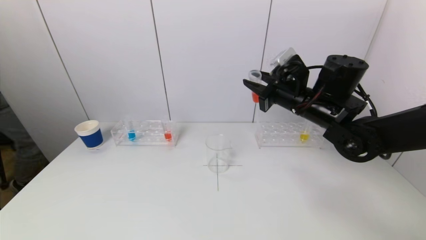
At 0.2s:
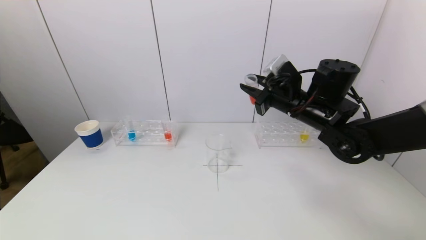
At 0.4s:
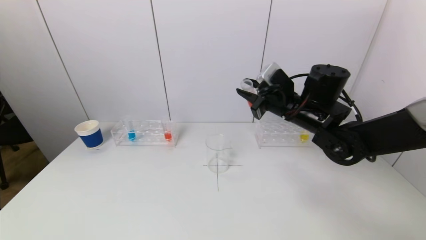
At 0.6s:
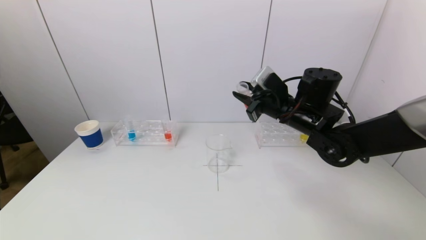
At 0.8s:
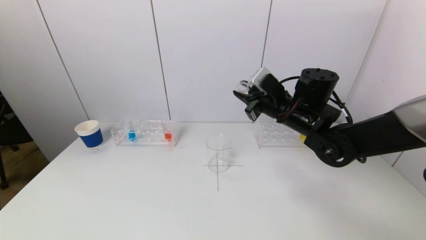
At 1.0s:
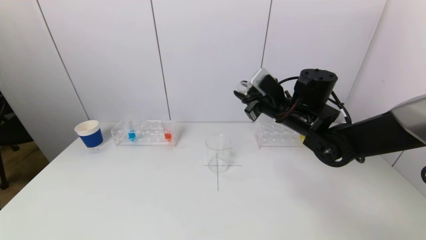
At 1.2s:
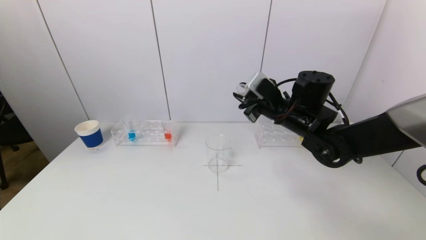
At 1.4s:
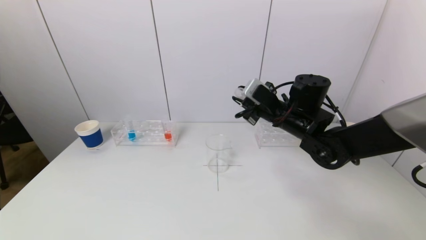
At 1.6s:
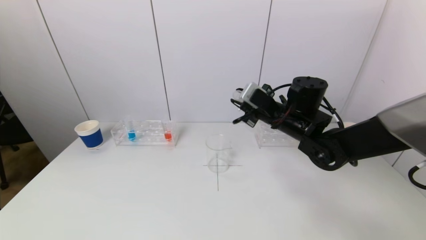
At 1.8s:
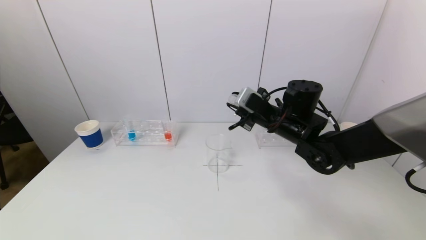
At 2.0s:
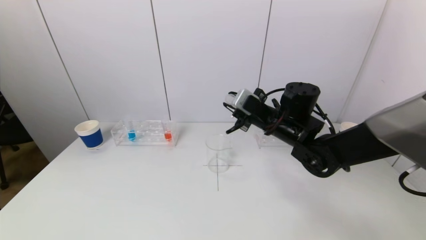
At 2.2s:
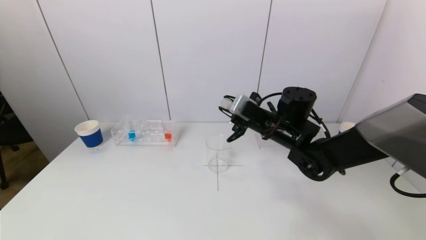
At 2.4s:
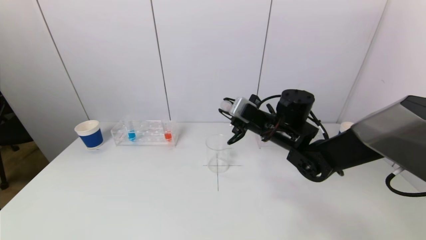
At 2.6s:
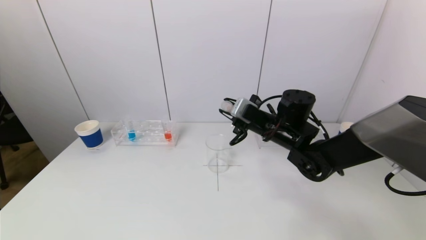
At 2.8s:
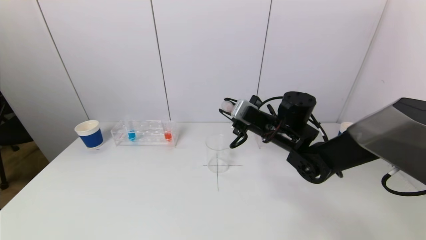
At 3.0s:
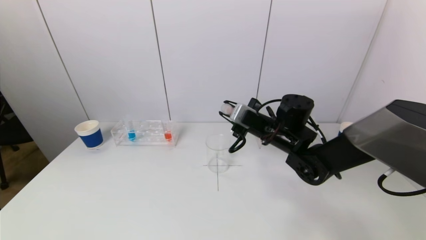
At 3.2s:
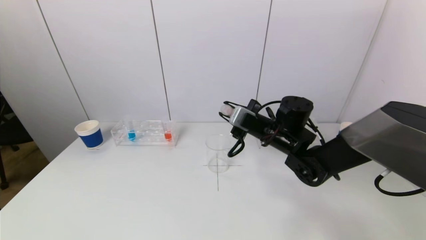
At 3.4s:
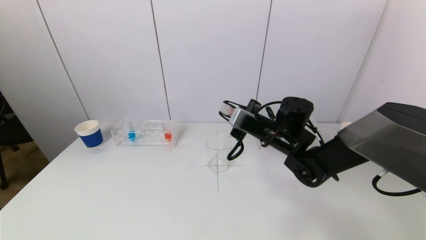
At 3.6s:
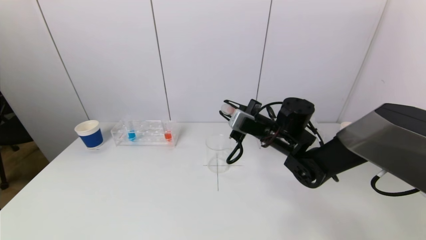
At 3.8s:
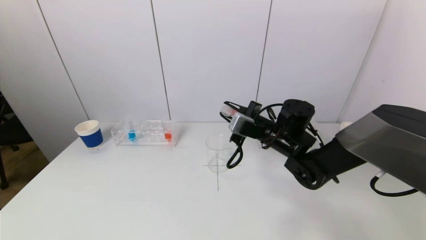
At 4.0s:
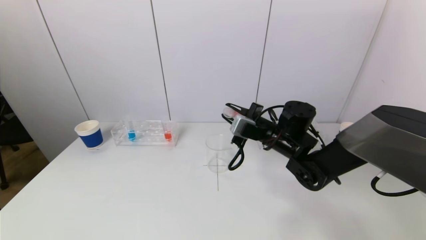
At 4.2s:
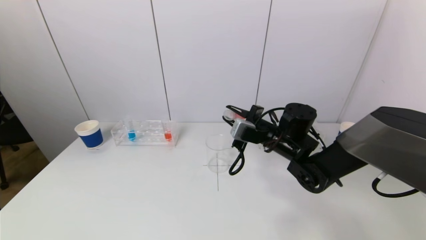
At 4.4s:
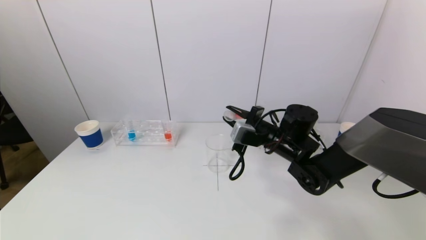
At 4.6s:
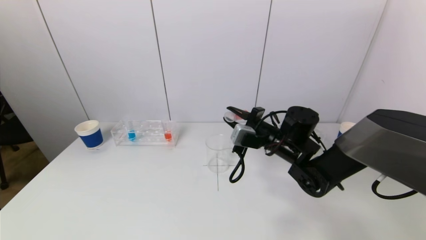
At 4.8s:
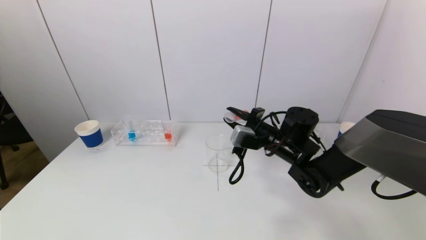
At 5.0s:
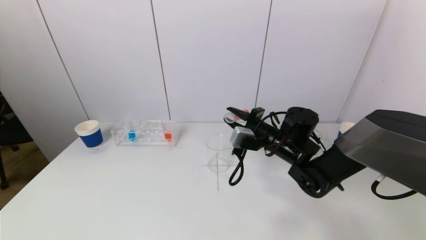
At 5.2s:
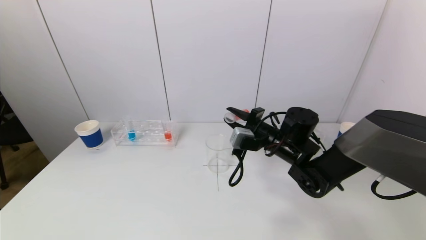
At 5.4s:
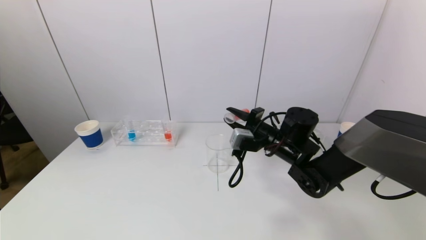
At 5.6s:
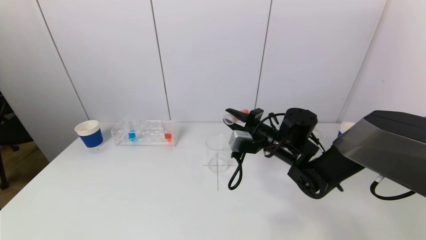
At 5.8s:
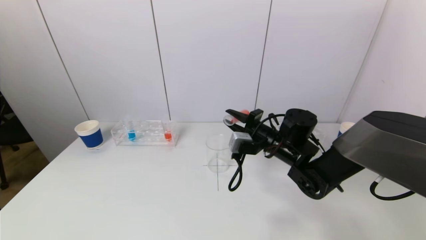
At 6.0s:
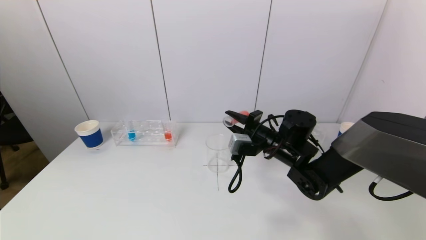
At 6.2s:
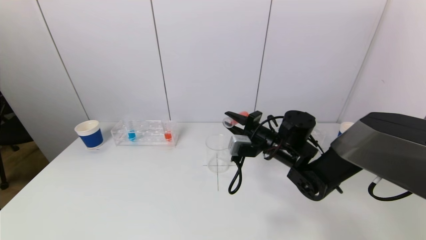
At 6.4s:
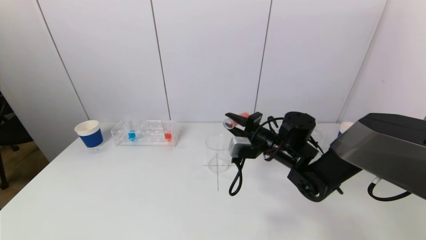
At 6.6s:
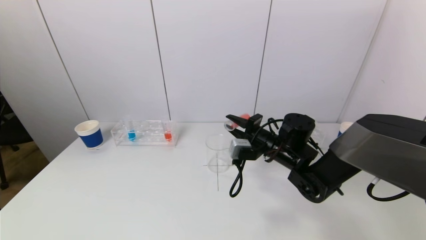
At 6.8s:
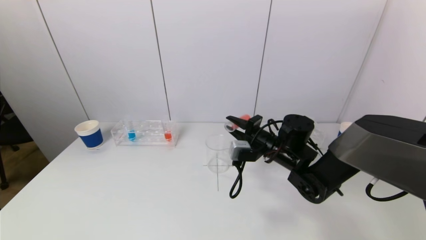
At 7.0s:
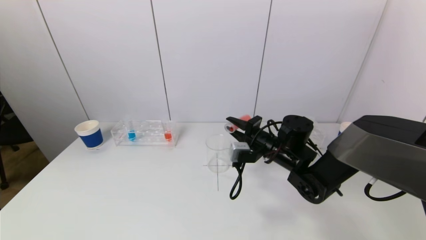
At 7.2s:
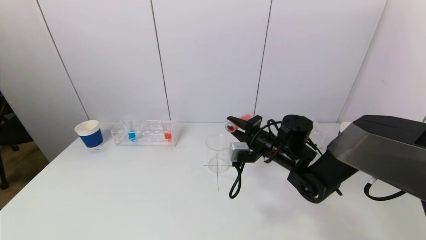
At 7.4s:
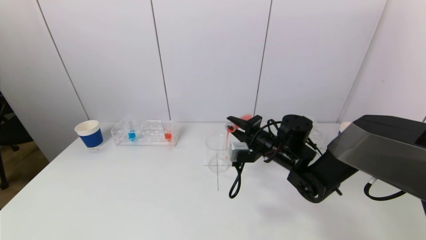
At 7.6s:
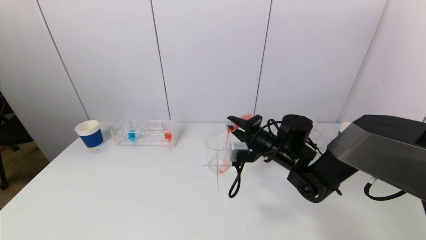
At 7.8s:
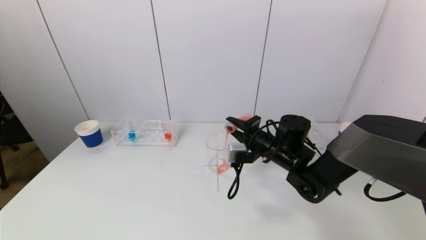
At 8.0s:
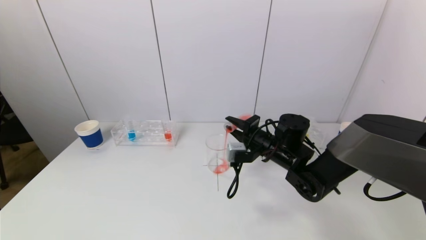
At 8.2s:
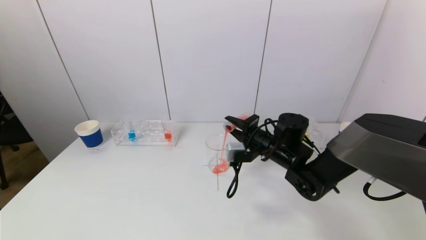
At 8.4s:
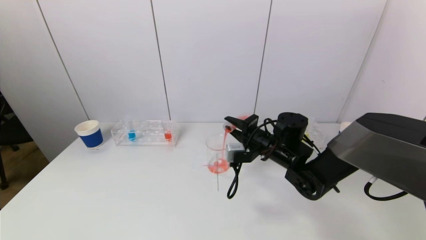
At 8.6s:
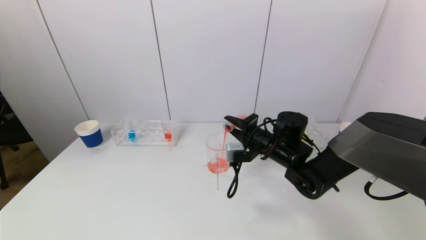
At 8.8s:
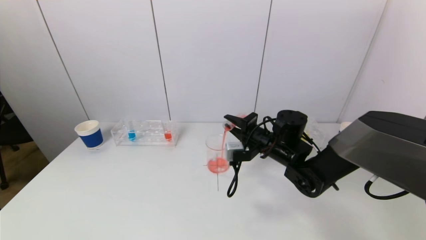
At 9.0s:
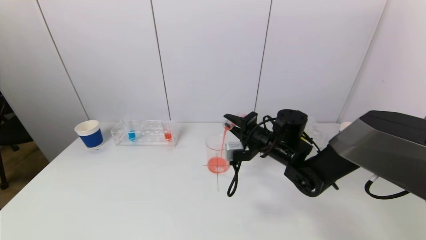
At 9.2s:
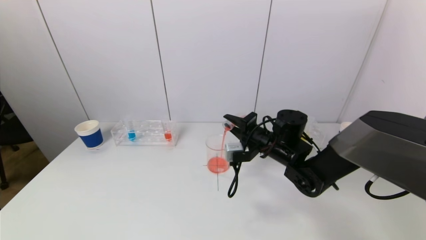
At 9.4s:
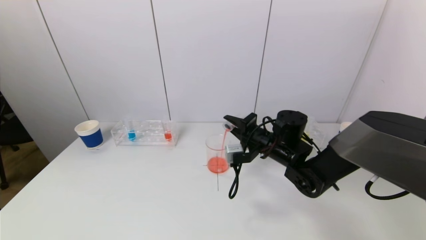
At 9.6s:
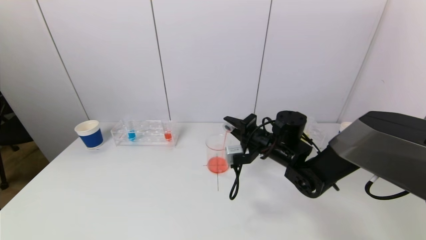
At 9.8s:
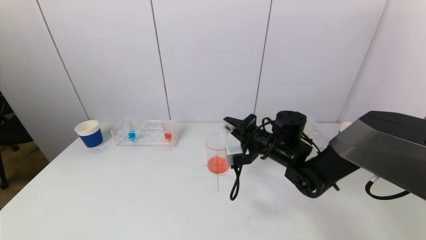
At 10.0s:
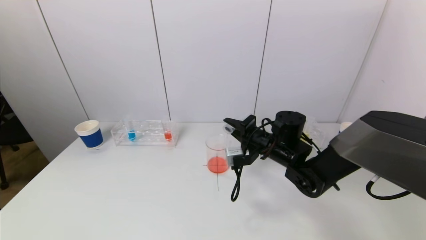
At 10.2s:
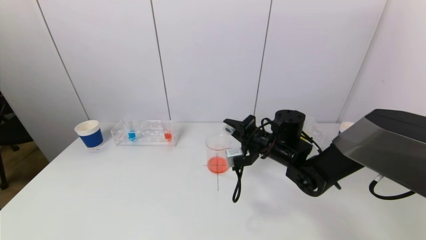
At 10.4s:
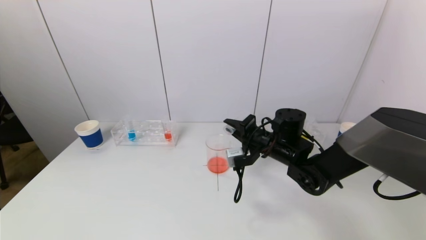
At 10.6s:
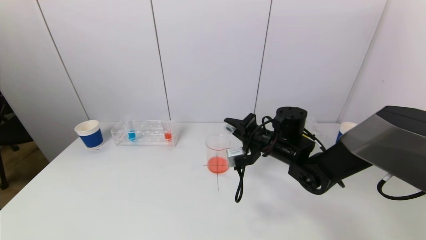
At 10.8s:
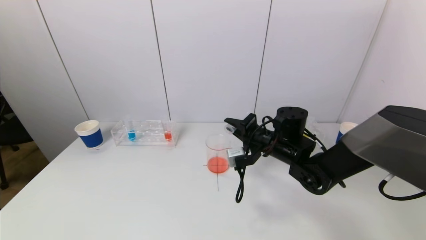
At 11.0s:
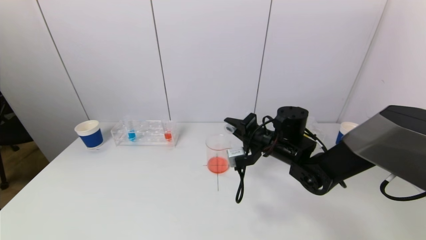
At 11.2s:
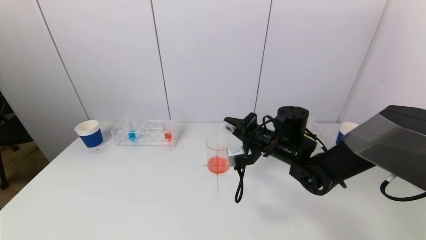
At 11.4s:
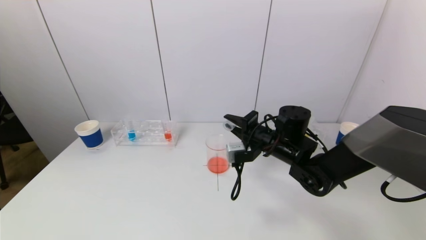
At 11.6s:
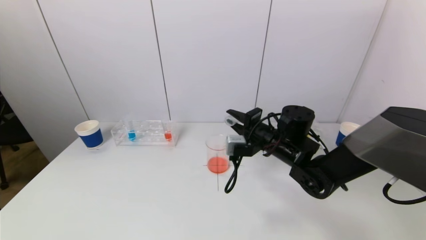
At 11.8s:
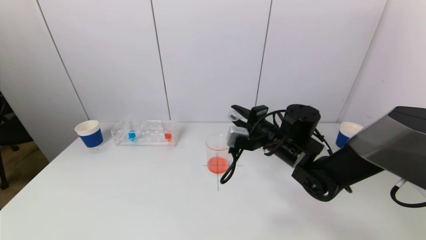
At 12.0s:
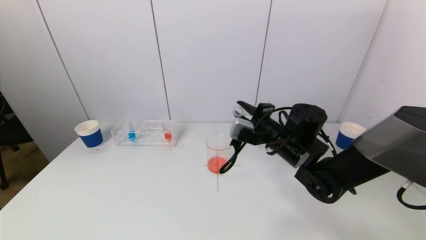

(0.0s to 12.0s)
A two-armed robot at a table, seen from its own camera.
Task of the whole recording: pick up a test tube with pigment on left test tube rack and a test tube with pigment on right test tube rack by grippers and pour them into the beaker.
Step, 0.0s - 11.4s: Pour the red reagent into the graduated cylinder with the right gripper.
0.0s - 1.6s: The right gripper changes place by approximately 5 cm.
1.6s - 3.0s: There are only small adjustments of the grippers.
3.0s - 4.4s: There are only small adjustments of the grippers.
4.4s - 7.6s: The grippers move only a little.
7.6s - 10.4s: The grippers move only a little.

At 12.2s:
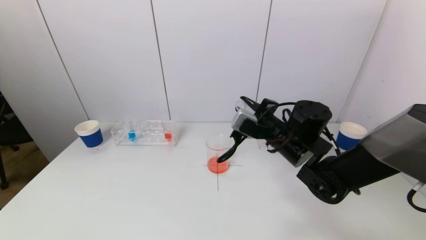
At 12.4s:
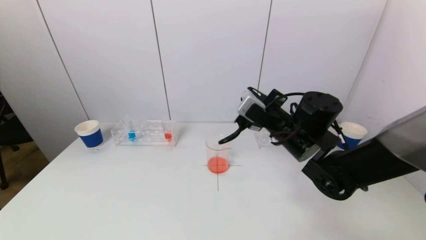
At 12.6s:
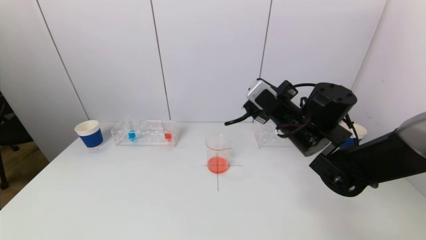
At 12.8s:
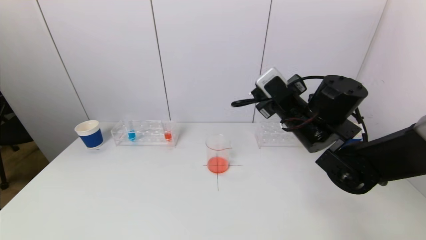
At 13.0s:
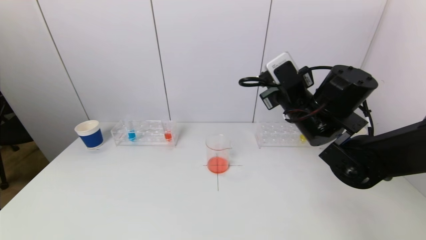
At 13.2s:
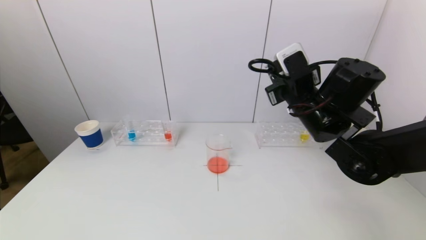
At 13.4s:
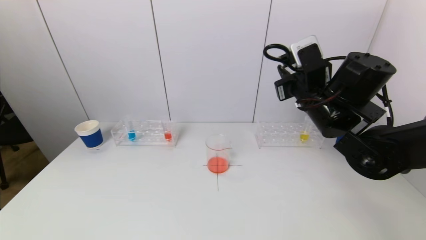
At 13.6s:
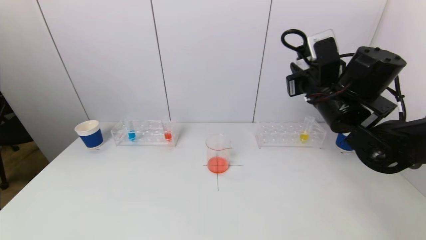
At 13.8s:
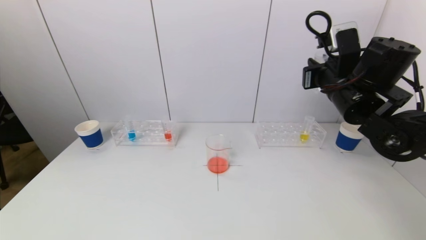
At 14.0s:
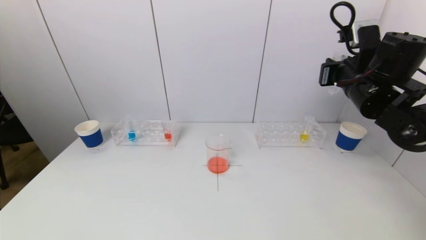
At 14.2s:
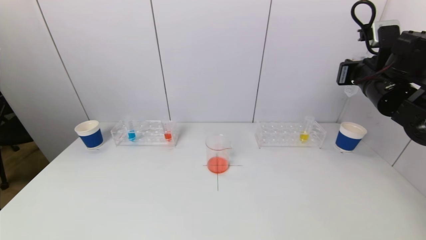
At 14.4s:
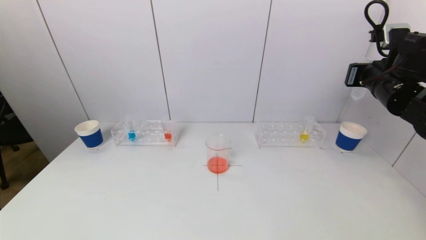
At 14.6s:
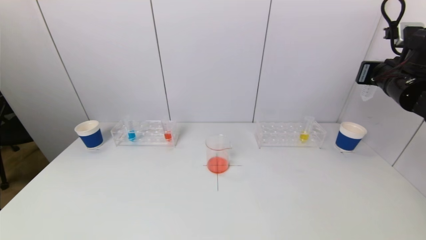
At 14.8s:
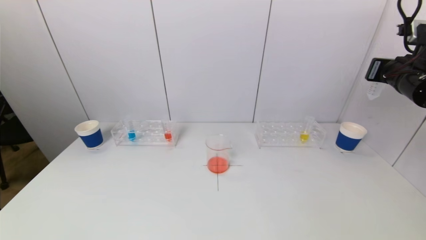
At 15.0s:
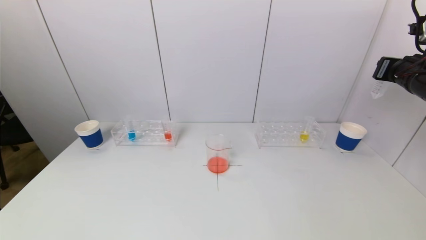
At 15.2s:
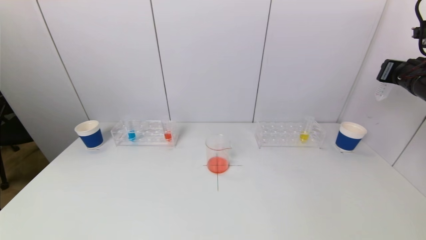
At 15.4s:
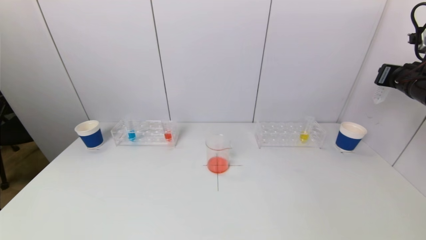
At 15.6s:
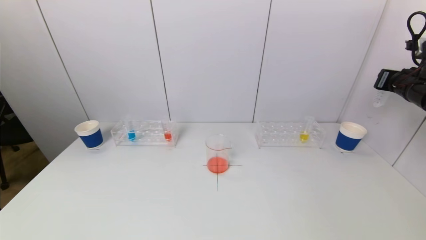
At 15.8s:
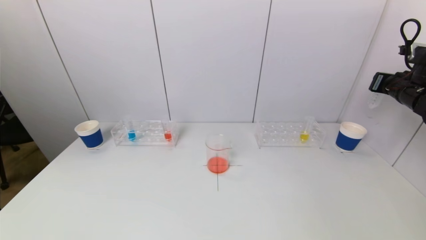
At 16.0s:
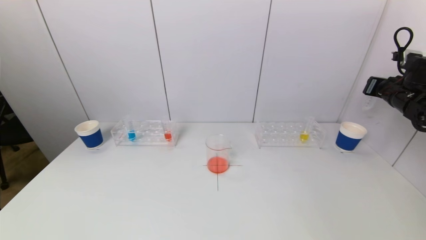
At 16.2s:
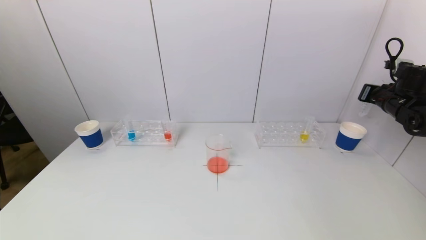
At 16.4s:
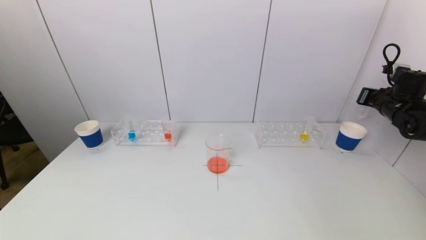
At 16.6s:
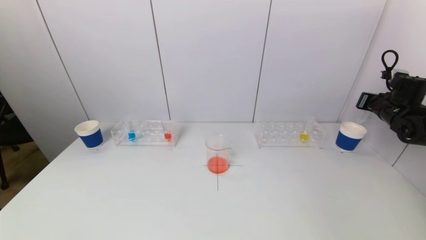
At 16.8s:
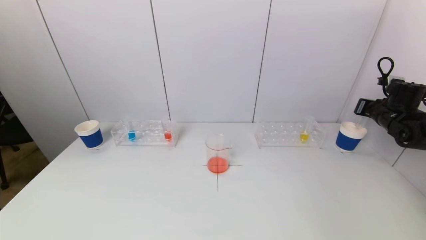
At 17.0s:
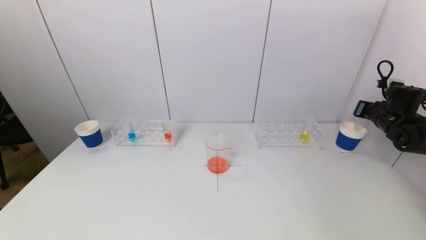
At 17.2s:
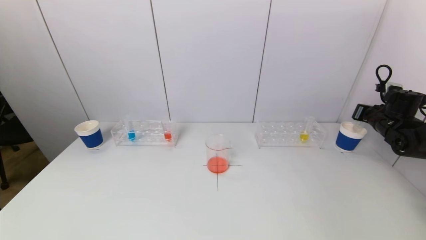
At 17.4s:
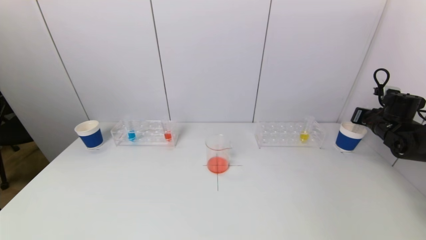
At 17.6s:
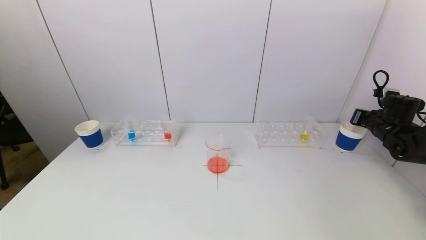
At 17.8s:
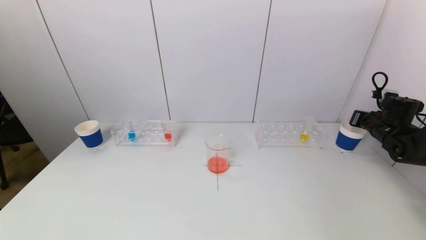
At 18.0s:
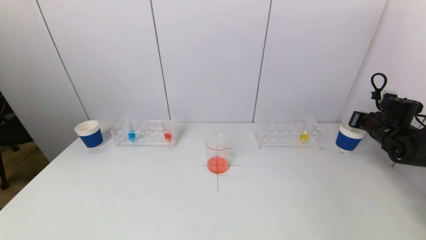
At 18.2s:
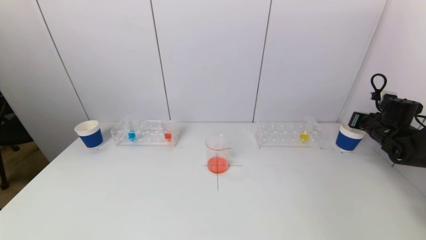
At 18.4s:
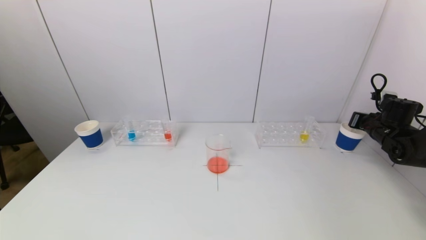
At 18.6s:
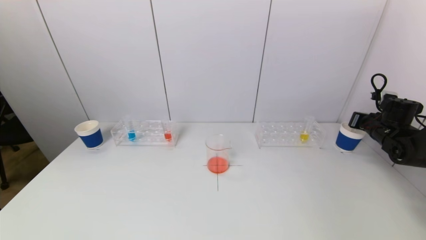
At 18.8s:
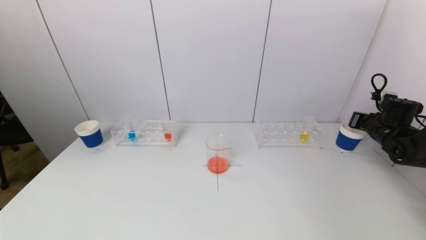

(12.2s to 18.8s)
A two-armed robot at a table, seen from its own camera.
Task of the whole recording: pick up a test tube with pigment on left test tube rack and a test tube with pigment on right test tube rack by grippers and pour them into the beaker.
12.2s - 13.8s: The right gripper moves upward and to the right, approximately 15 cm.
13.8s - 15.4s: The right gripper is displaced to the right by roughly 20 cm.
15.4s - 17.2s: The right gripper is displaced downward and forward by some 15 cm.
17.2s - 18.8s: The grippers make only small movements.
